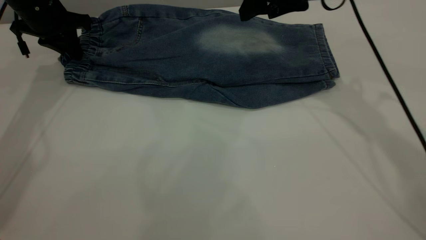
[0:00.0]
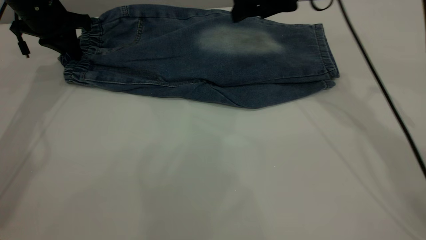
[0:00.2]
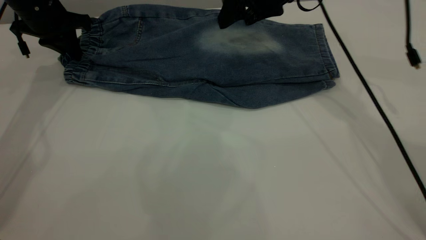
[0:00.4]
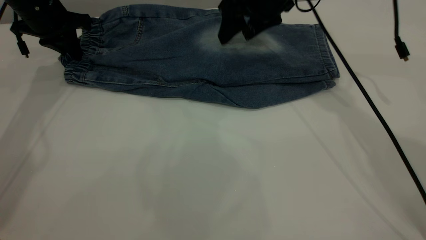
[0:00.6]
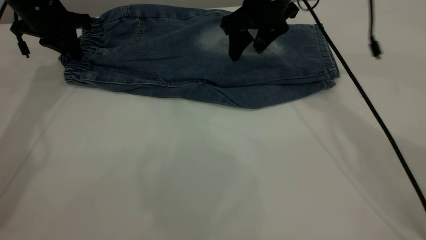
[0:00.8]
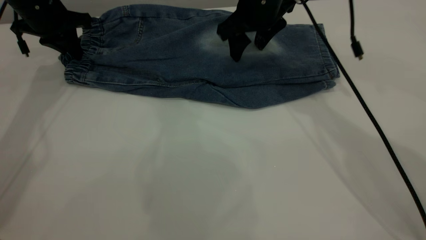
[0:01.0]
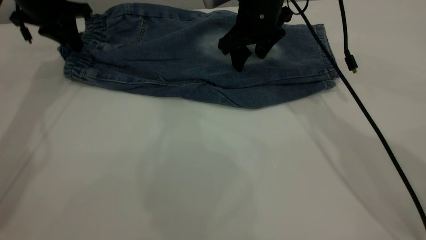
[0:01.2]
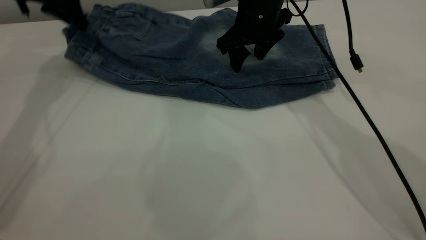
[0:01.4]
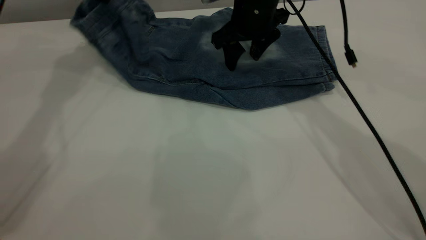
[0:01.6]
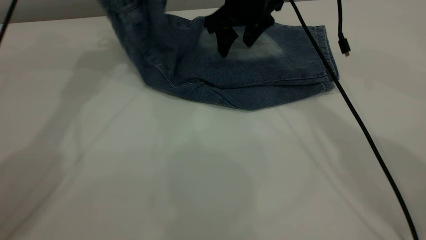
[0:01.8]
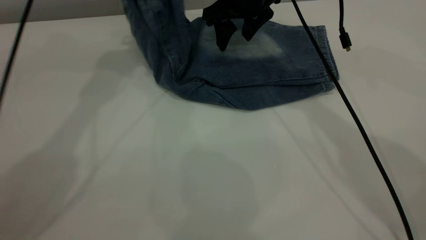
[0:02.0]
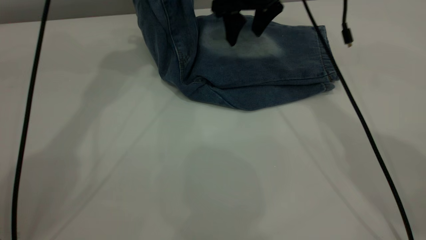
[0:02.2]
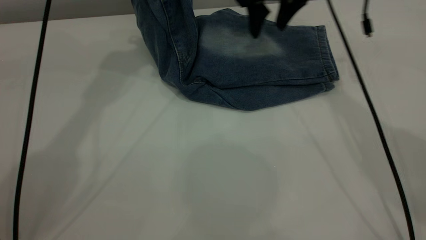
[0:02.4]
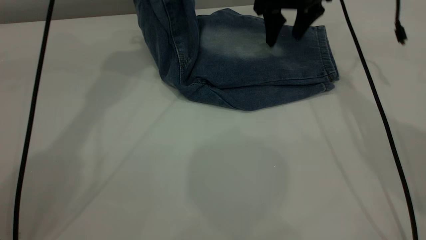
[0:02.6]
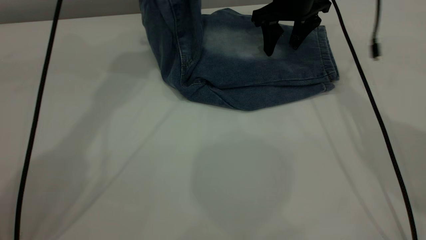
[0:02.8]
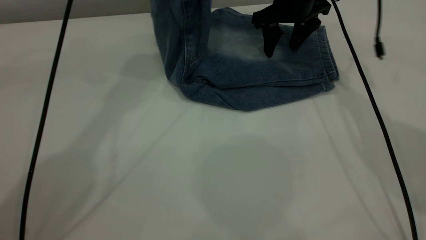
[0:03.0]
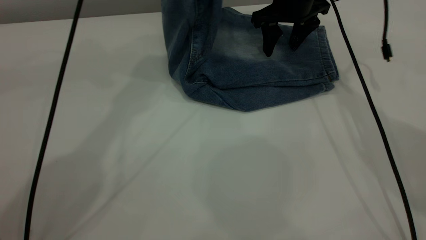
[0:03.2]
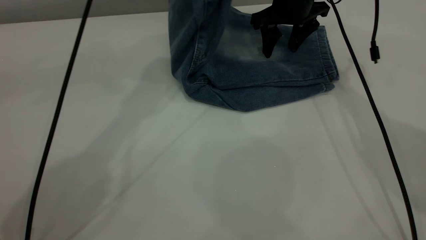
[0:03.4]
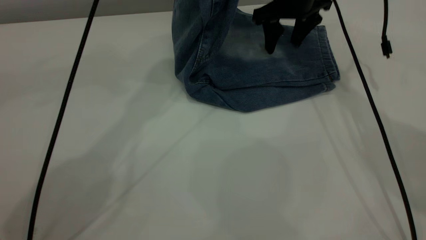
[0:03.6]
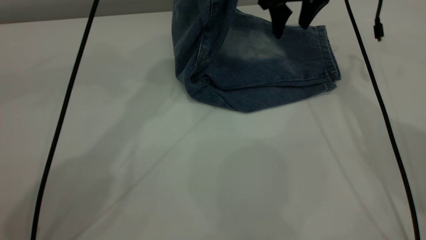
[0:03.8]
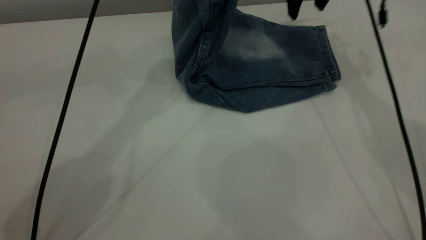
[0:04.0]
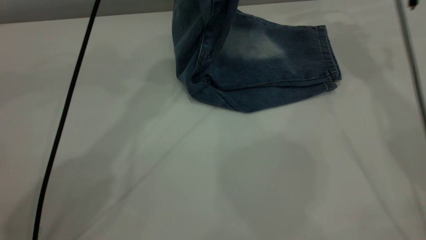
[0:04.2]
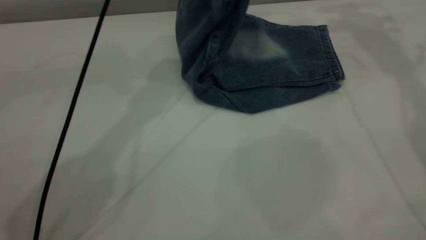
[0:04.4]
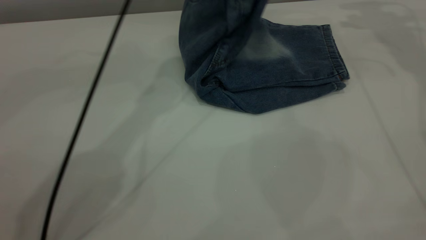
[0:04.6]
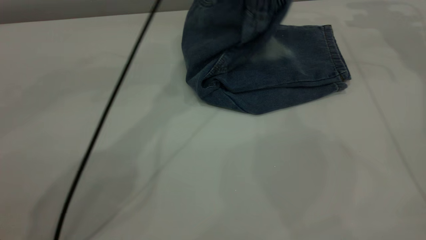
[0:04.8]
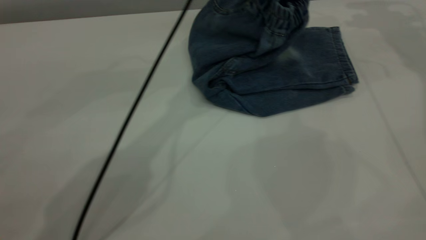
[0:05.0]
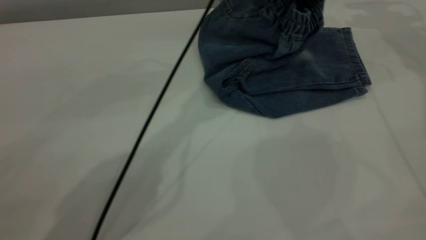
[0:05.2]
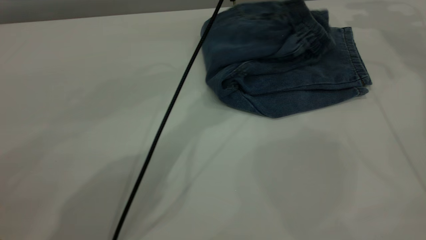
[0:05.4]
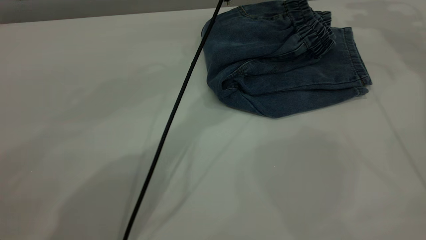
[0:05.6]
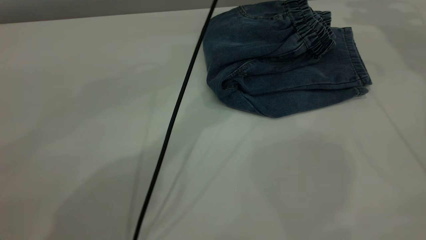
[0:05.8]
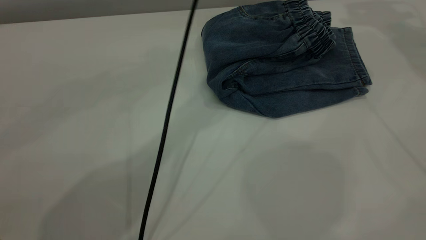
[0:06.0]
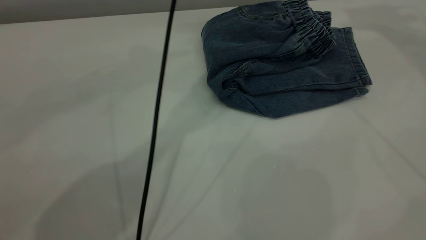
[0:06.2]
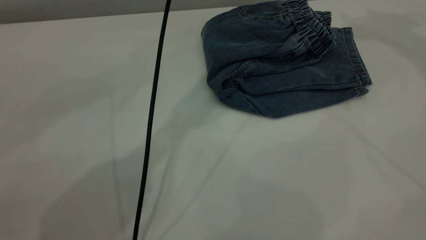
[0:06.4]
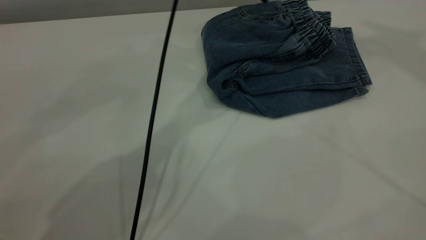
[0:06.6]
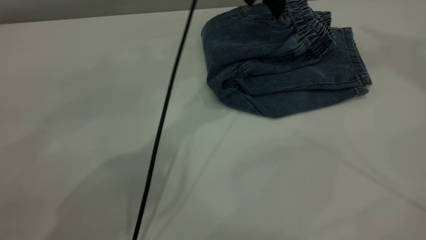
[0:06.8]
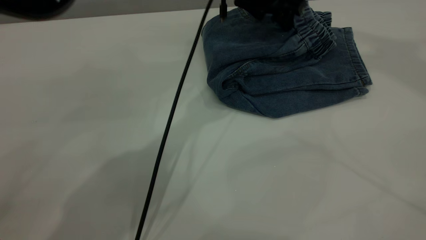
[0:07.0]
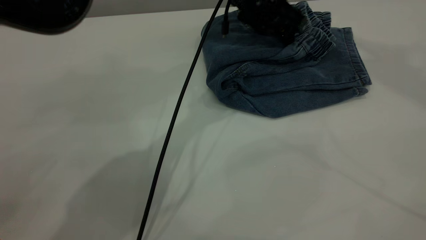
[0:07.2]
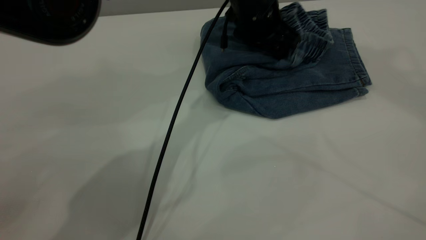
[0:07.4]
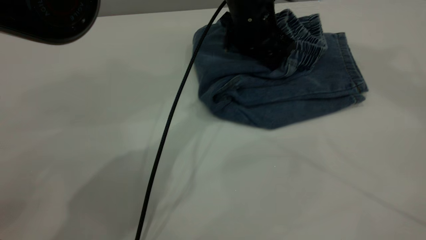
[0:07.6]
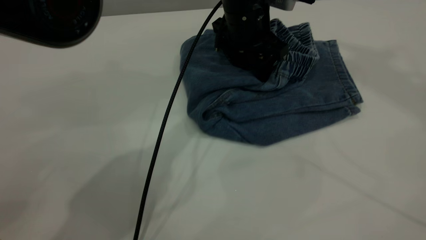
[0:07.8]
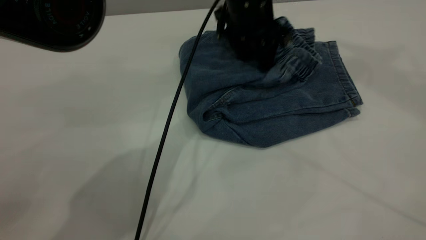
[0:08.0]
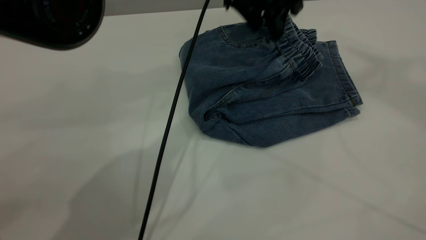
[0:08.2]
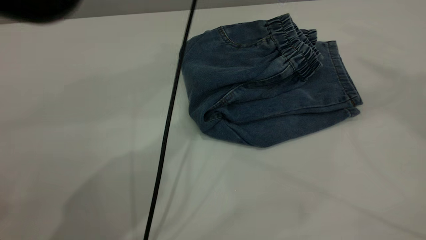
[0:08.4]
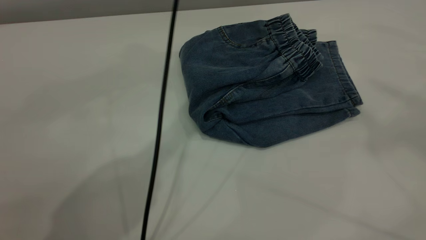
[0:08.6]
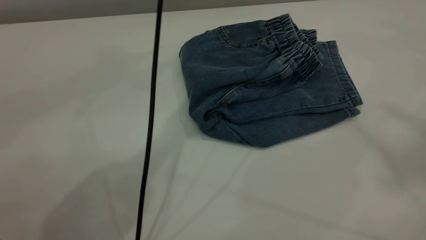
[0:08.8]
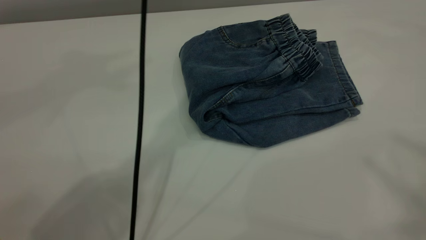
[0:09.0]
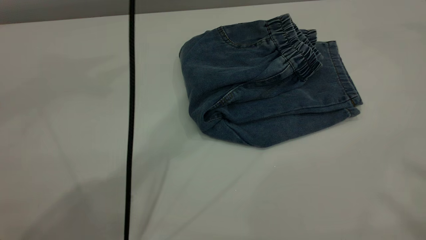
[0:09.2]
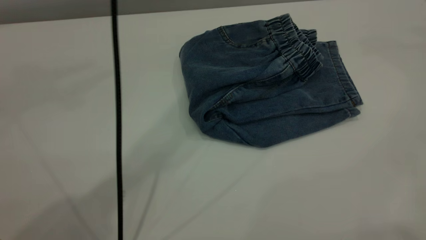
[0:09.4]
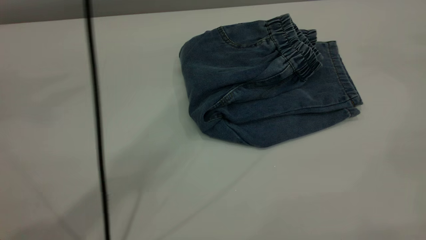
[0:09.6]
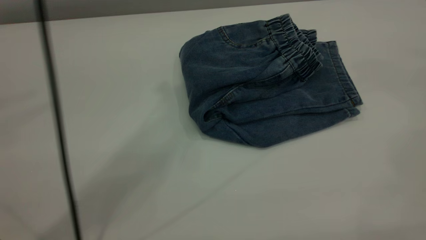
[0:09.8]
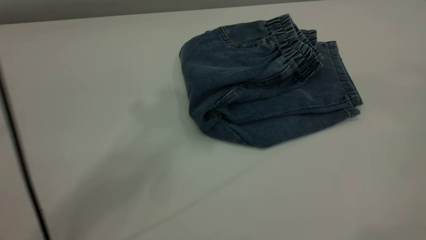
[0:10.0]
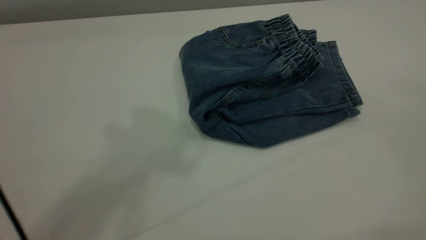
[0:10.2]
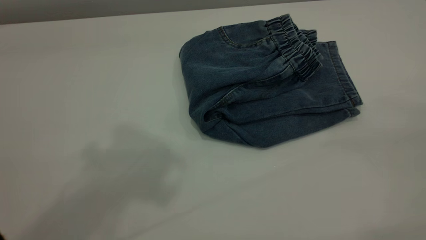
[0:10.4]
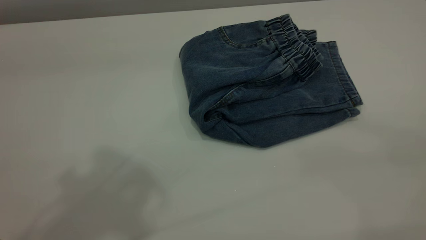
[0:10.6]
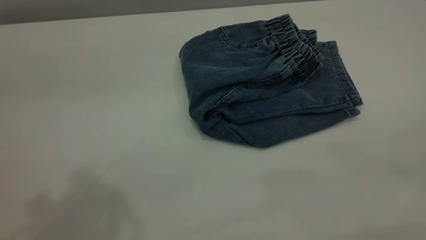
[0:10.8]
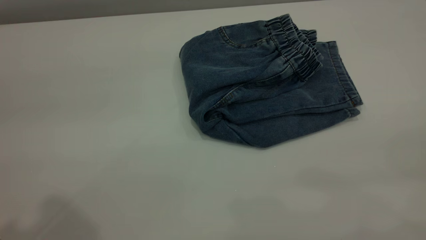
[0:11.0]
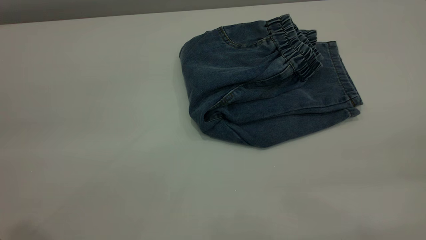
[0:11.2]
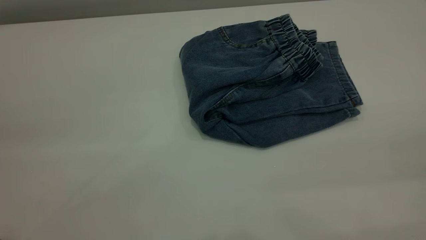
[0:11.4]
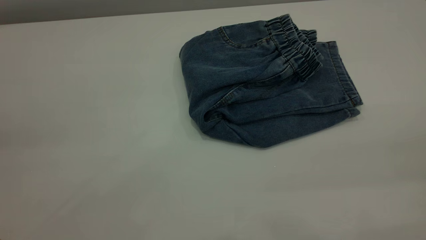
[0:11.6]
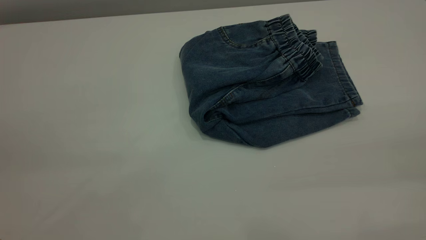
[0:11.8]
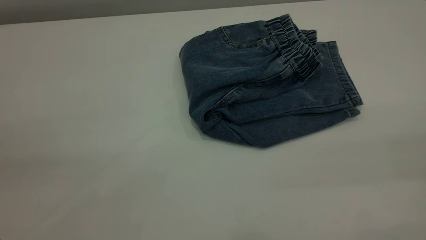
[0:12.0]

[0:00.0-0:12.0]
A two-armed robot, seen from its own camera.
Step, 0:00.0 to 0:06.2: Fold the pants from left to right.
0:00.0 to 0:01.6: The right gripper goes roughly 5 cm to the left; the left gripper shifts some 10 cm upward and to the right.
0:01.6 to 0:03.0: The left gripper shifts approximately 15 cm to the right and upward; the right gripper is displaced to the right by some 5 cm.
0:03.0 to 0:04.4: The left gripper goes approximately 5 cm to the right. Meanwhile the right gripper shifts approximately 20 cm upward and to the right.
0:04.4 to 0:06.0: The left gripper is displaced to the right by roughly 10 cm, and opens its fingers. The right gripper travels upward by some 10 cm.
0:06.0 to 0:07.6: The left gripper travels downward by about 20 cm; the right gripper goes about 25 cm upward and backward.
0:07.6 to 0:09.0: The right gripper is displaced backward by some 20 cm. The left gripper shifts roughly 30 cm upward.
0:09.0 to 0:10.4: The left gripper moves backward and to the left, approximately 25 cm; the right gripper shifts about 25 cm backward and downward.
